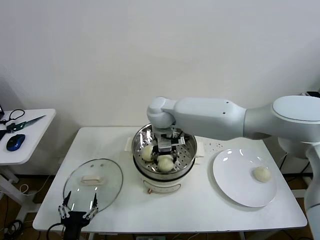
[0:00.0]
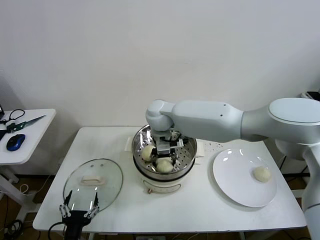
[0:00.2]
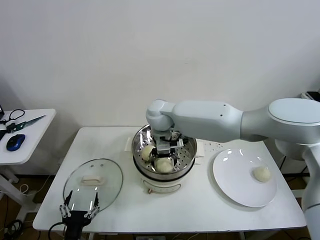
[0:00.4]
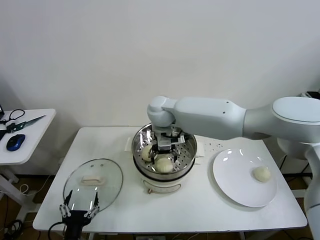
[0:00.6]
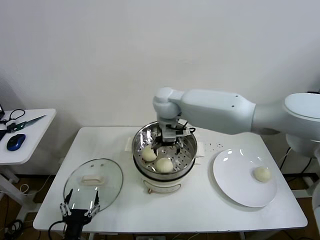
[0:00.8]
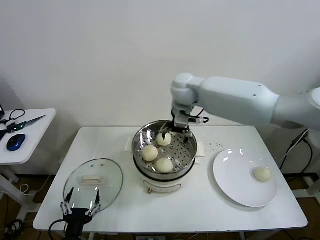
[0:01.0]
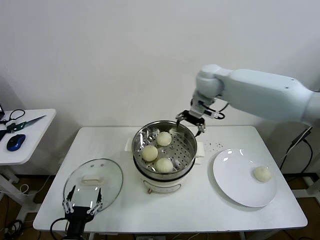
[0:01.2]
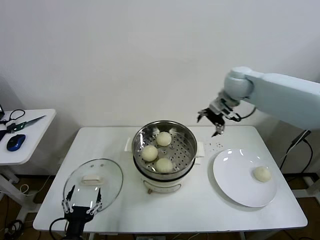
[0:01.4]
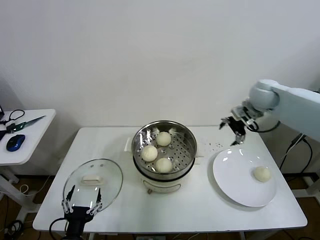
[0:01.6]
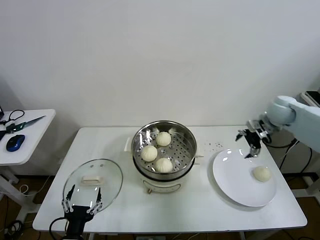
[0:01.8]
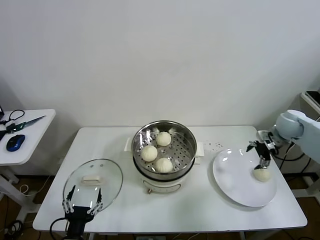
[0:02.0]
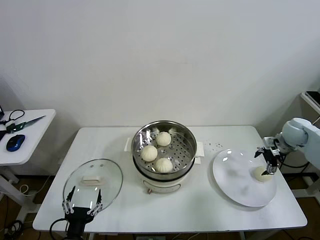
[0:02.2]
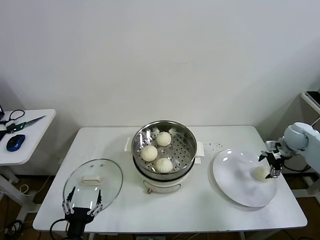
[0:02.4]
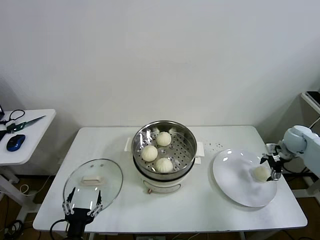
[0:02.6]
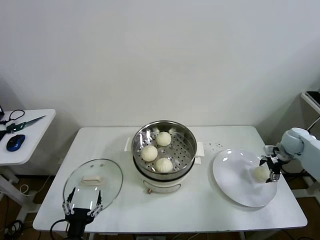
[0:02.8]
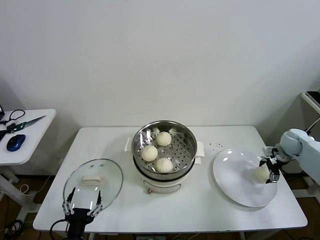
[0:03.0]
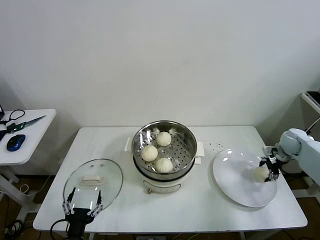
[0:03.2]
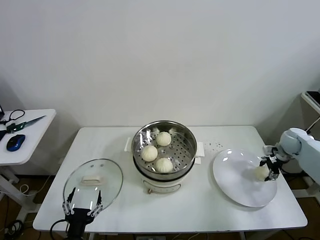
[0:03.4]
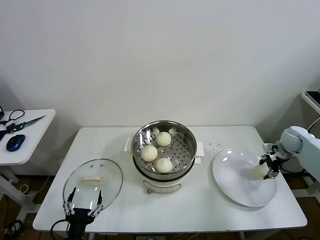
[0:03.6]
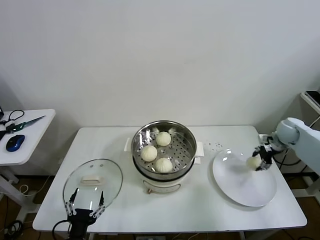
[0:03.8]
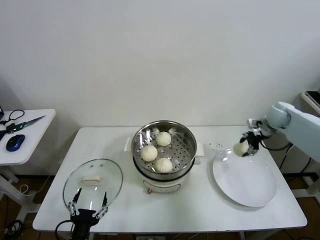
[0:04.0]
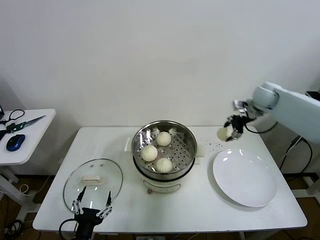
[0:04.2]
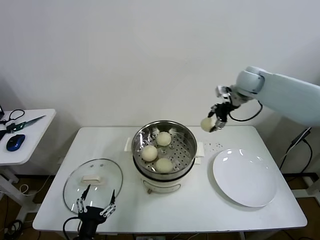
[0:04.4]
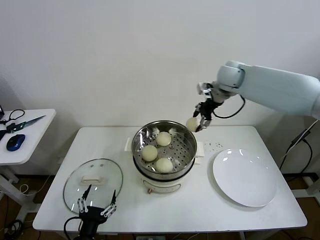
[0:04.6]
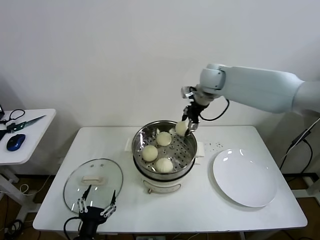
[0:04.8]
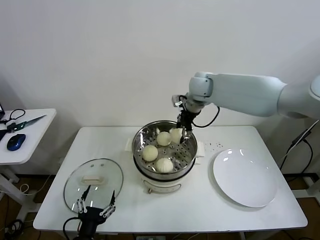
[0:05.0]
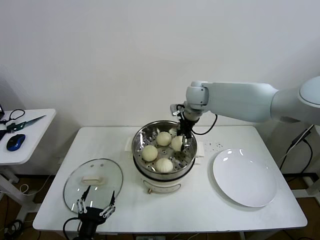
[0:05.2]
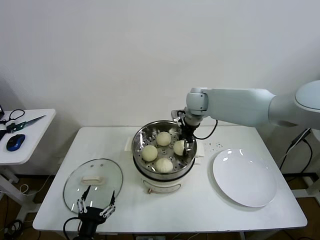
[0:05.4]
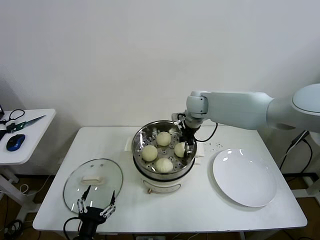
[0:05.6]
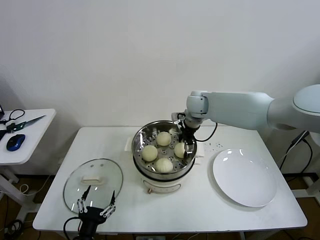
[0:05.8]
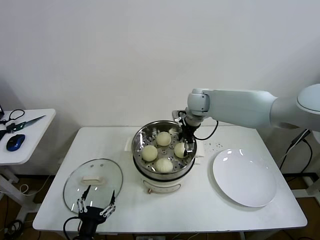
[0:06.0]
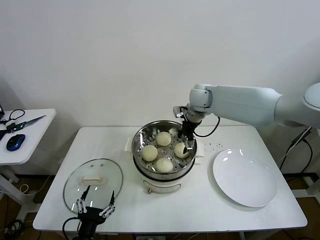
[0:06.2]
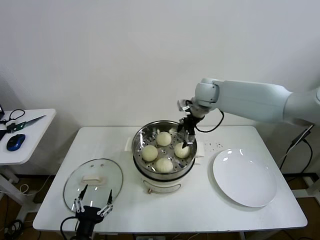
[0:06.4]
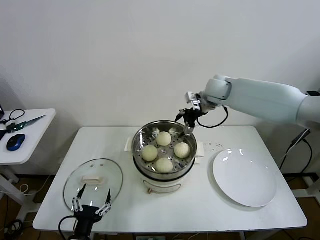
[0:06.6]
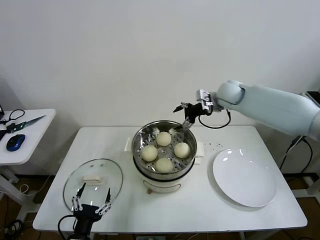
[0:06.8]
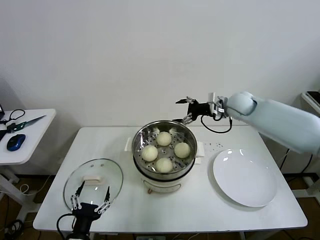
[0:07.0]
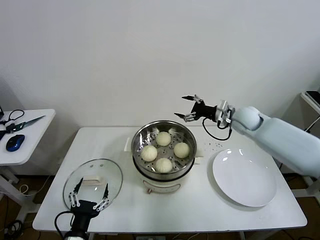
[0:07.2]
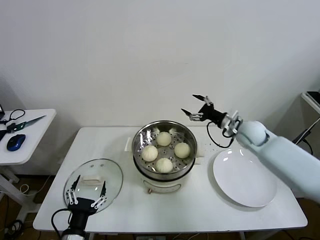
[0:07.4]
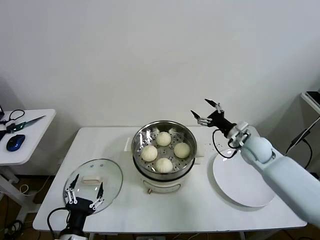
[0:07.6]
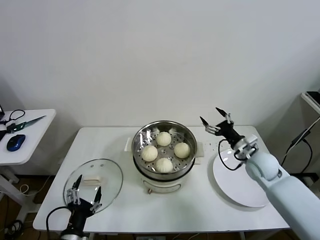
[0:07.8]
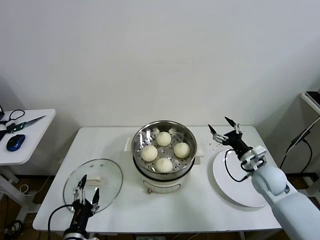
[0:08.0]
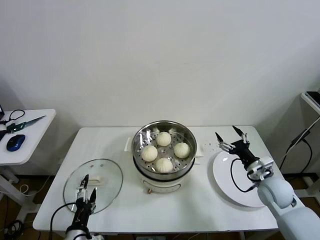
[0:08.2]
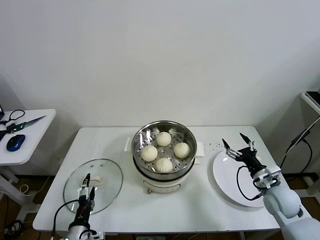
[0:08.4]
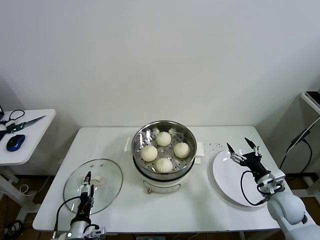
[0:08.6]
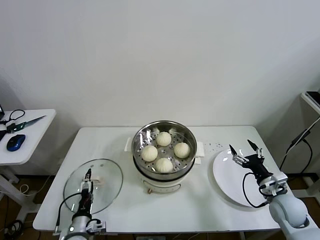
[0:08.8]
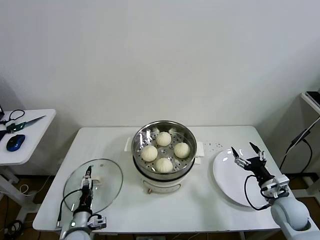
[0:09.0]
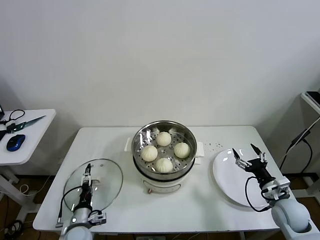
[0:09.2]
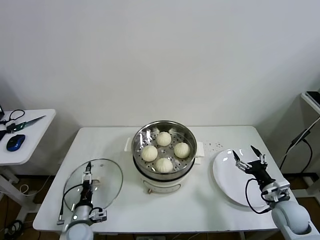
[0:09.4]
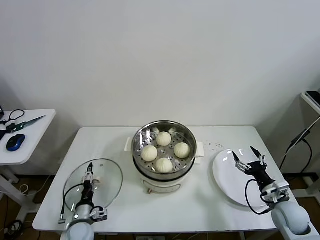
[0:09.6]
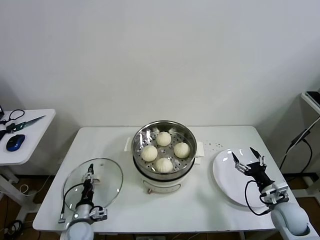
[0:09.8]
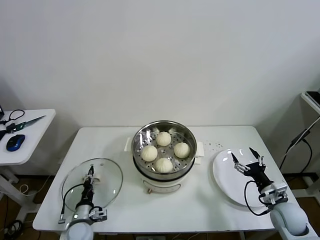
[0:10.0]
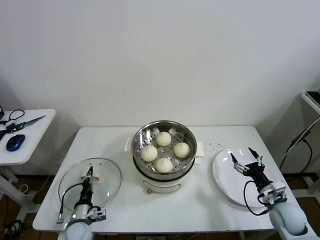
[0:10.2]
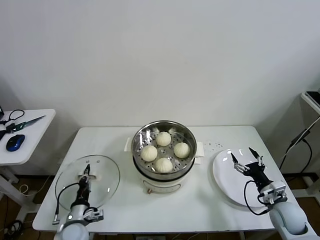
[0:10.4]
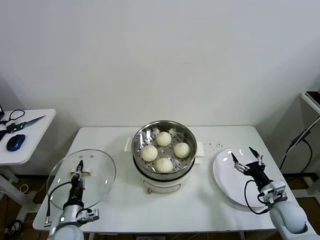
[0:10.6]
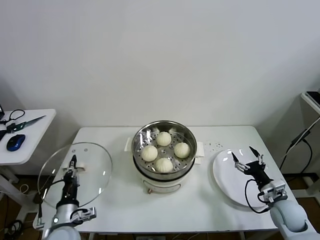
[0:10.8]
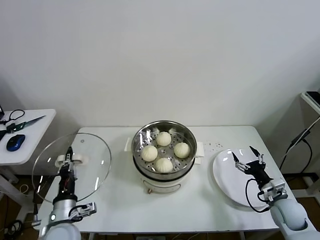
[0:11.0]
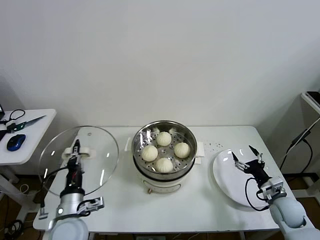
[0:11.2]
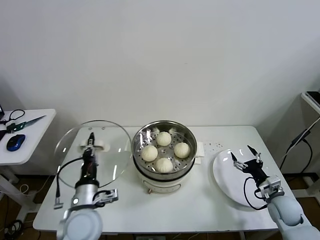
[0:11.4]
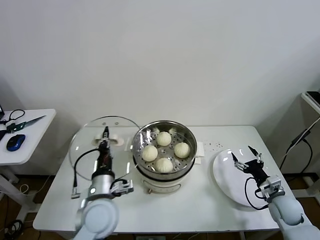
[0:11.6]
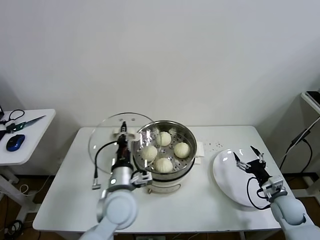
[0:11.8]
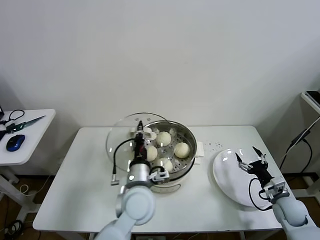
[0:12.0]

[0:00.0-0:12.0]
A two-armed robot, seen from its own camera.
Task of the whole recording: take steamed baozi put them in steamer then cover it.
Step, 0:00.8 to 0:03.2: Grasp the baozi in the plate with right gripper.
Step, 0:03.4 to 0:06.0: Place the baozi on the steamer with right gripper.
Step, 0:06.2 to 0:10.0: Grasp the pot lid with left gripper.
0:00.0 to 0:01.6: The right gripper heads to the right, covering roughly 35 cm, and opens its fingers.
0:01.6 to 0:03.0: The right gripper is displaced downward and to the right by some 25 cm.
0:03.0 to 0:04.4: The right gripper heads upward, to the left and forward, covering some 30 cm, and closes up.
0:04.4 to 0:06.0: The right gripper heads to the left and downward, covering about 15 cm, and opens its fingers.
0:06.0 to 0:07.6: The right gripper heads to the right, downward and backward, covering some 25 cm.
0:07.6 to 0:09.0: The left gripper heads downward and forward, covering approximately 15 cm. The right gripper travels backward, downward and to the right by roughly 20 cm.
0:09.0 to 0:10.4: The left gripper closes its fingers.
0:10.4 to 0:12.0: The left gripper goes about 30 cm to the right and upward.

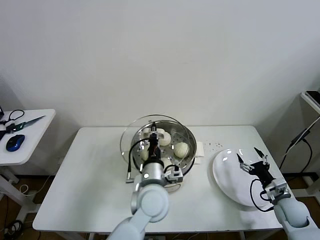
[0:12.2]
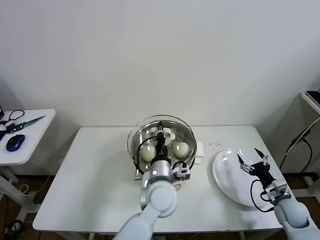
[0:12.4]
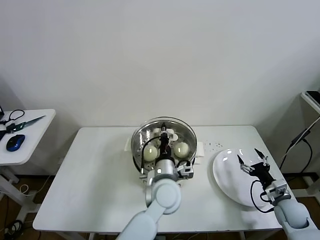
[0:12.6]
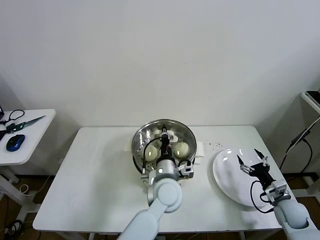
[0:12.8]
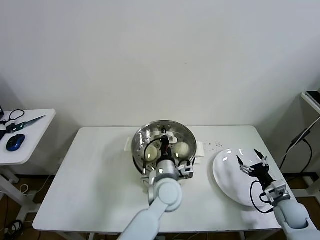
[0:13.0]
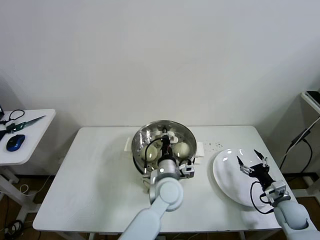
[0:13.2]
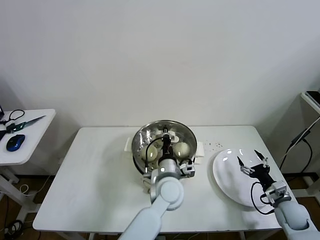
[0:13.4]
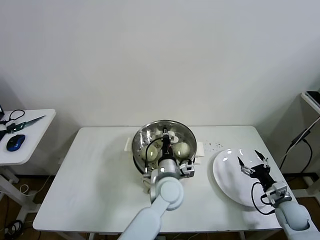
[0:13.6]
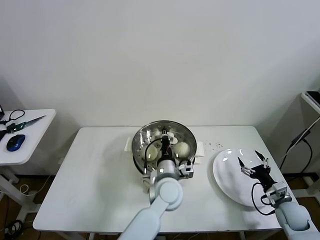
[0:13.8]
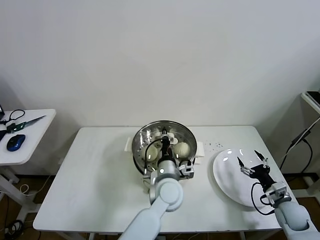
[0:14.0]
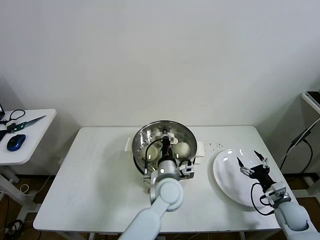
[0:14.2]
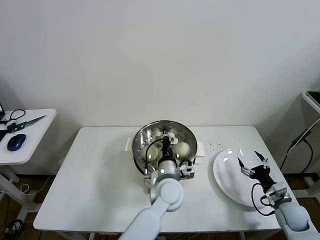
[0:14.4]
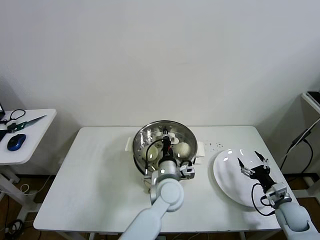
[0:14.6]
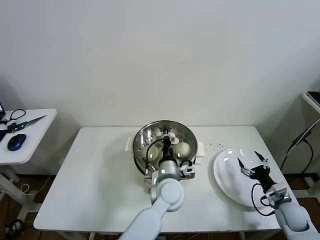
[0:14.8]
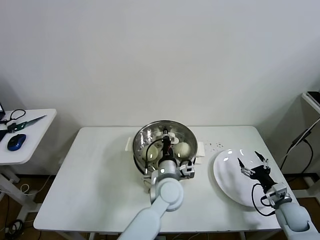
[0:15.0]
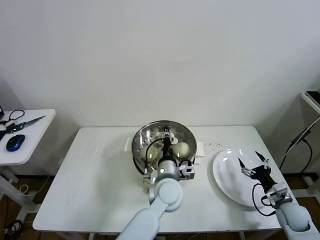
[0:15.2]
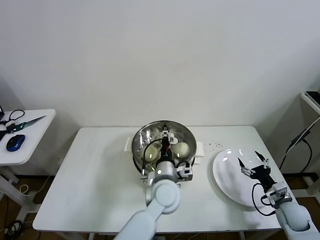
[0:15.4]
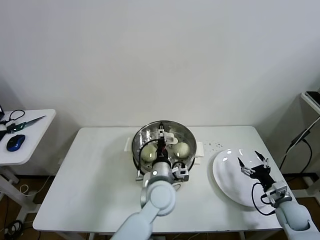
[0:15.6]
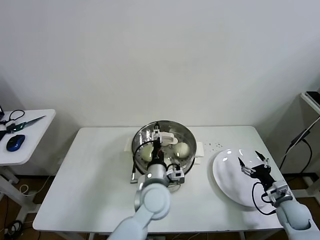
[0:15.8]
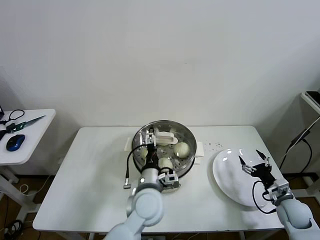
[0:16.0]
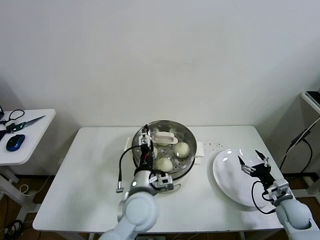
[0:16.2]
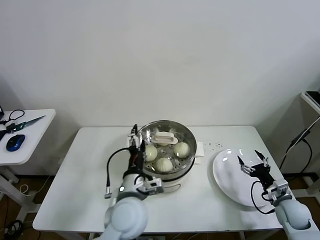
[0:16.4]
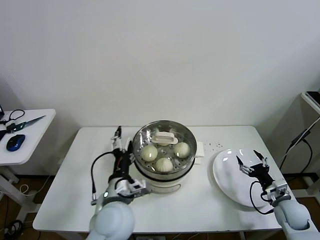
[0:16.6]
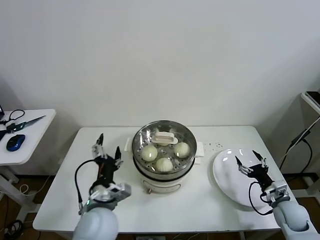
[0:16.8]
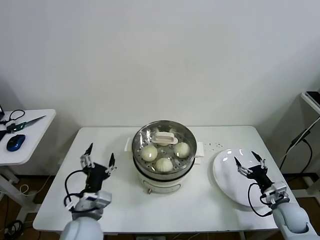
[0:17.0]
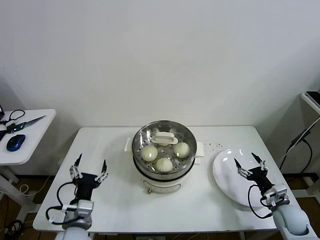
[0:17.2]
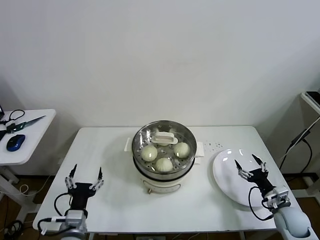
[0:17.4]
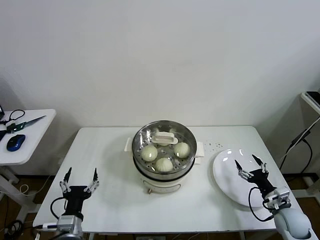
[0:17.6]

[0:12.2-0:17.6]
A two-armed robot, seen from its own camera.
Task of the whole recording: take steamed baozi put them in steamer then cover it.
Step, 0:12.2 to 0:15.4: Place the pot lid on the steamer with left gripper.
0:12.2 to 0:13.6: The left gripper heads to the right, covering some 5 cm.
0:13.6 to 0:15.0: The two grippers keep their place.
0:15.0 to 0:16.2: The left gripper is displaced to the left and backward by roughly 10 cm, and opens its fingers.
0:16.2 to 0:17.6: The left gripper heads to the left and backward, covering approximately 25 cm.
